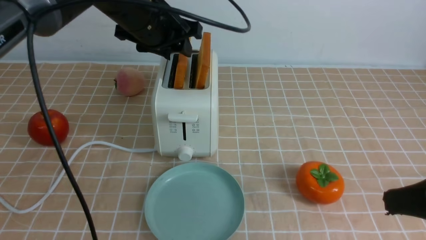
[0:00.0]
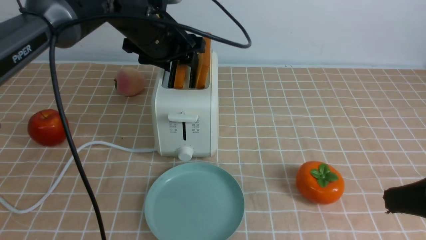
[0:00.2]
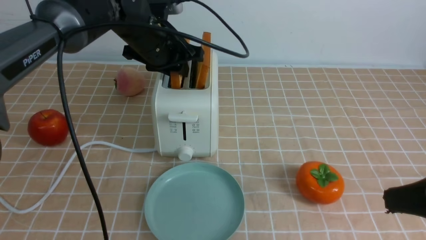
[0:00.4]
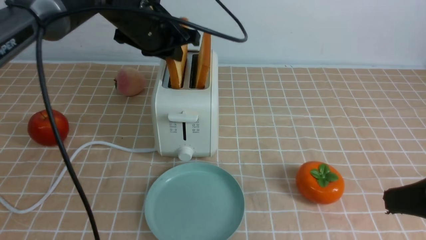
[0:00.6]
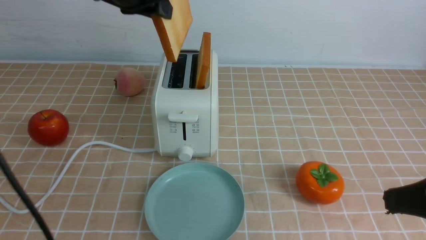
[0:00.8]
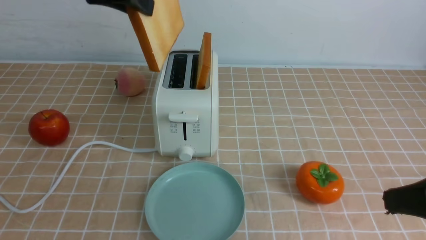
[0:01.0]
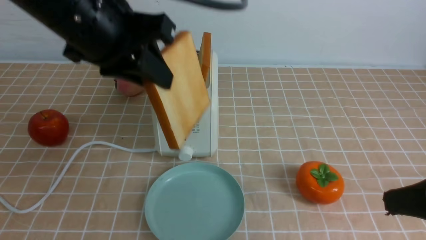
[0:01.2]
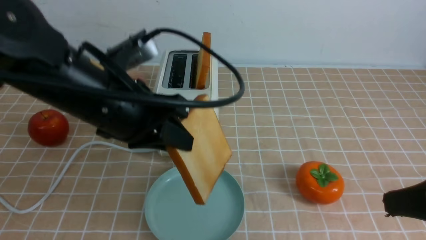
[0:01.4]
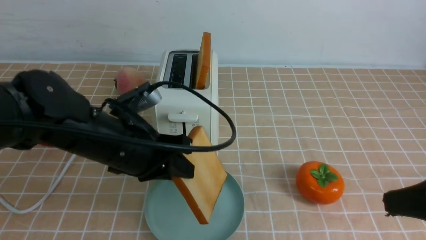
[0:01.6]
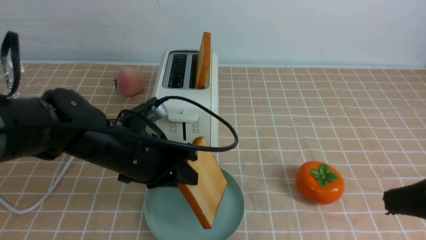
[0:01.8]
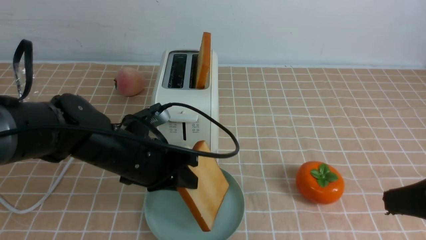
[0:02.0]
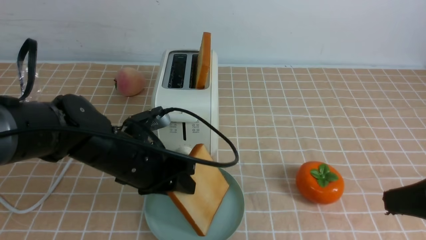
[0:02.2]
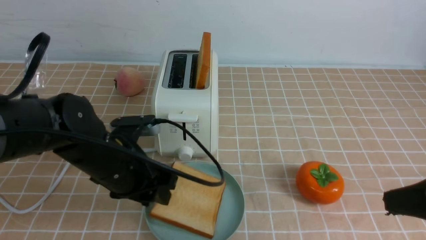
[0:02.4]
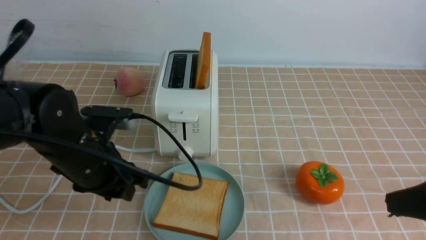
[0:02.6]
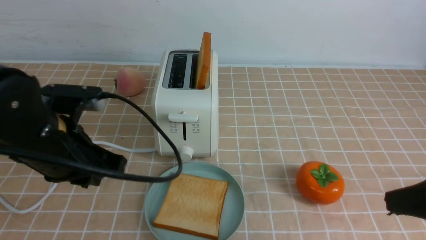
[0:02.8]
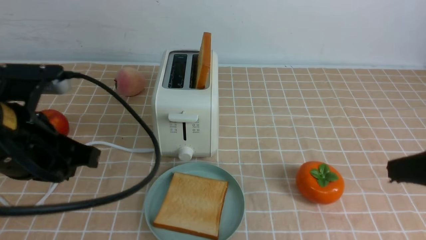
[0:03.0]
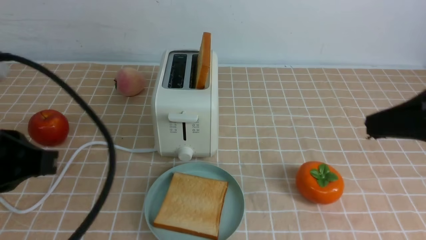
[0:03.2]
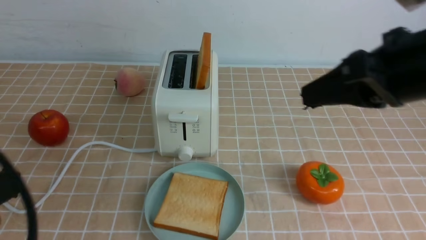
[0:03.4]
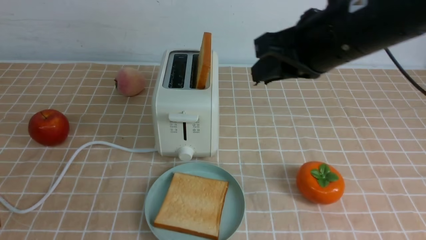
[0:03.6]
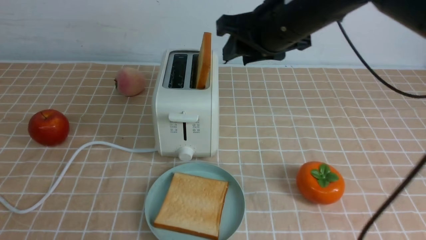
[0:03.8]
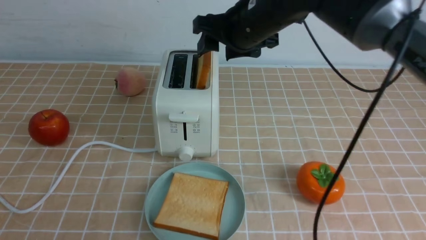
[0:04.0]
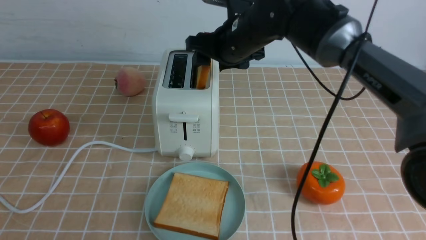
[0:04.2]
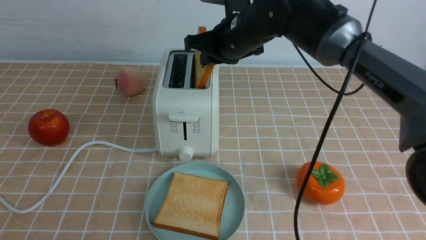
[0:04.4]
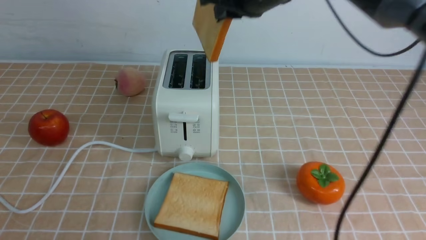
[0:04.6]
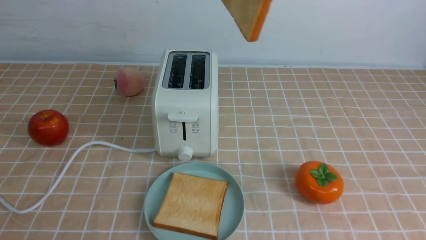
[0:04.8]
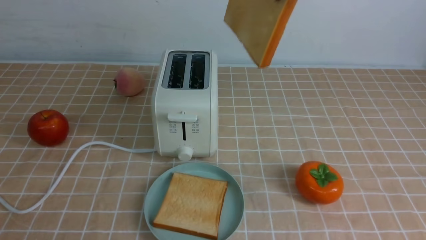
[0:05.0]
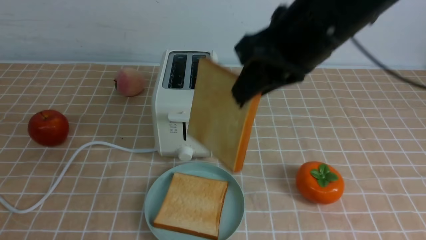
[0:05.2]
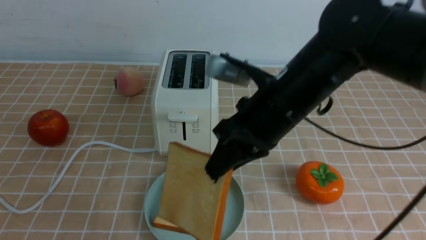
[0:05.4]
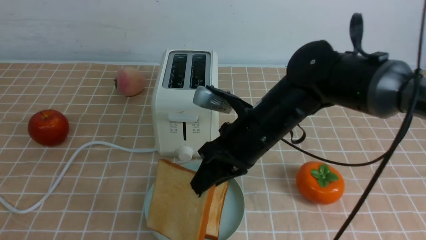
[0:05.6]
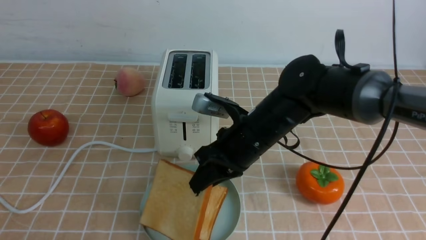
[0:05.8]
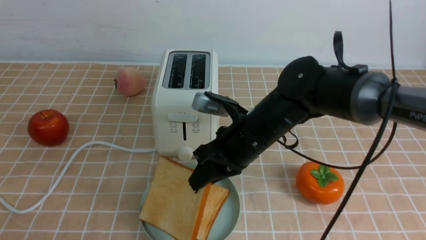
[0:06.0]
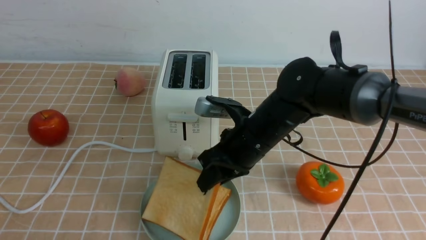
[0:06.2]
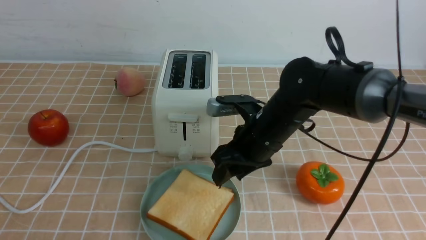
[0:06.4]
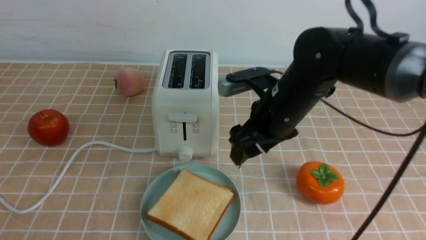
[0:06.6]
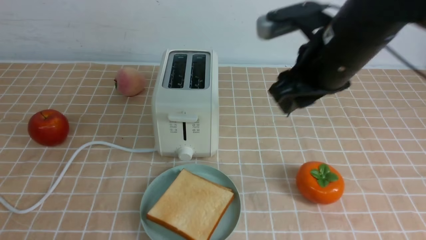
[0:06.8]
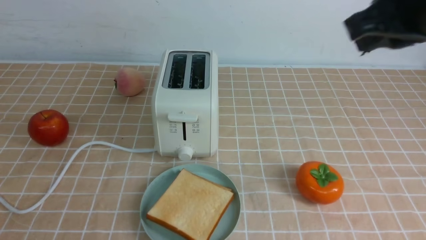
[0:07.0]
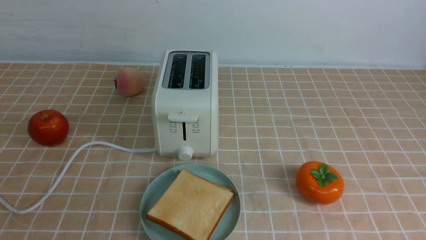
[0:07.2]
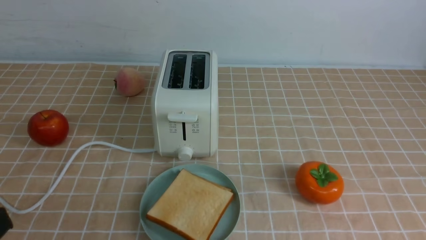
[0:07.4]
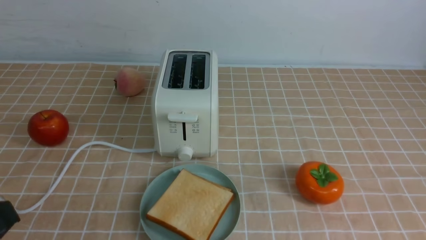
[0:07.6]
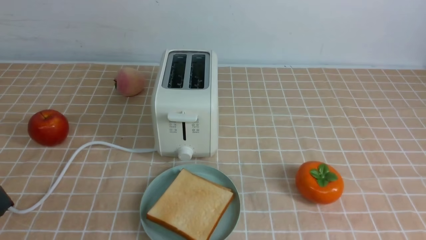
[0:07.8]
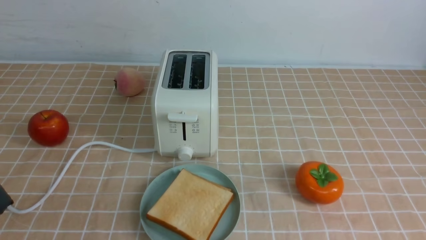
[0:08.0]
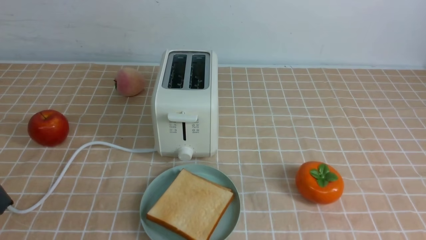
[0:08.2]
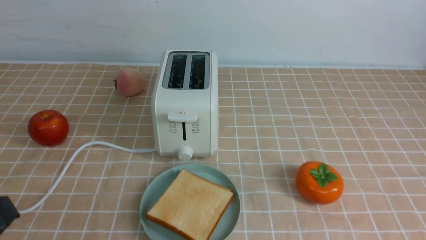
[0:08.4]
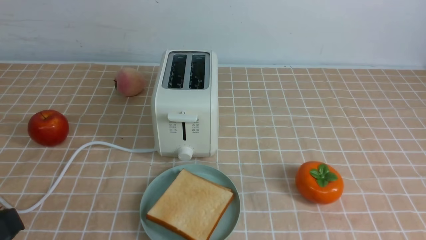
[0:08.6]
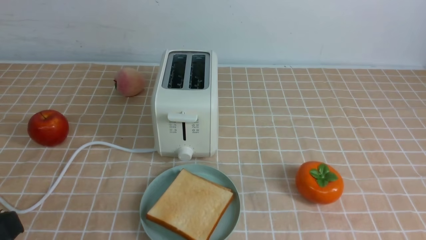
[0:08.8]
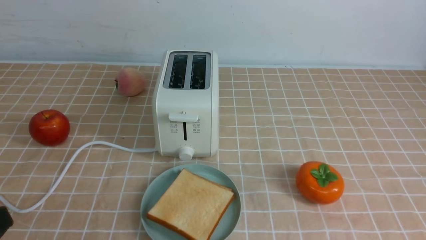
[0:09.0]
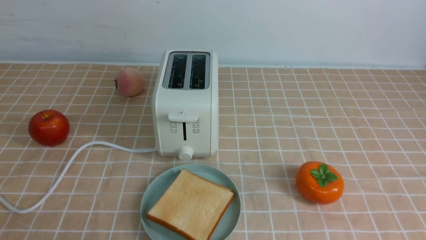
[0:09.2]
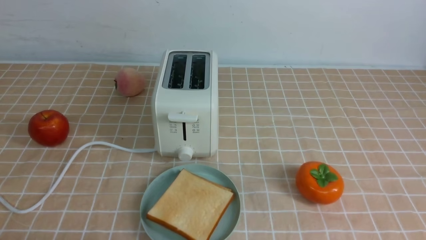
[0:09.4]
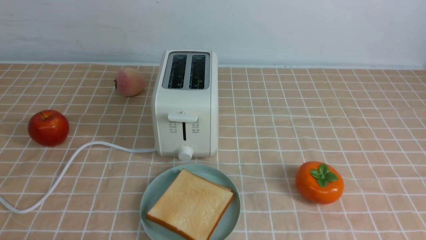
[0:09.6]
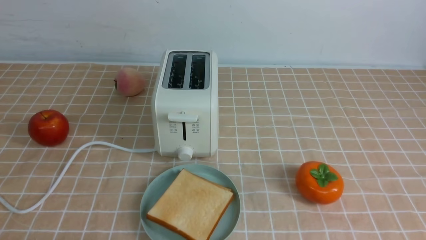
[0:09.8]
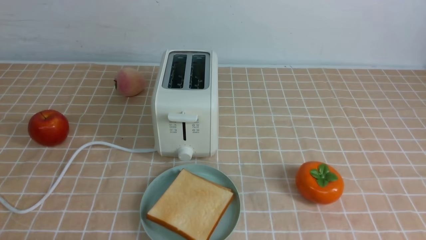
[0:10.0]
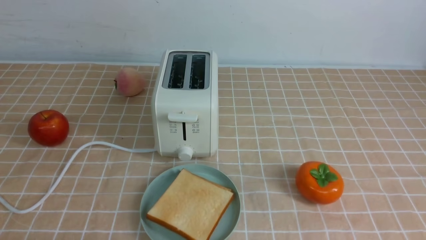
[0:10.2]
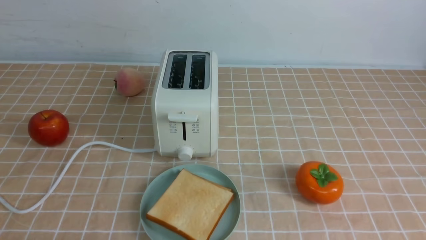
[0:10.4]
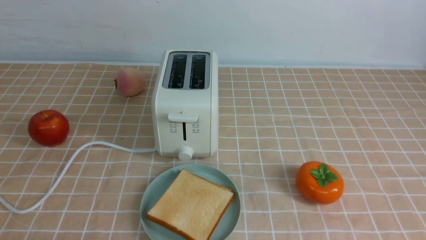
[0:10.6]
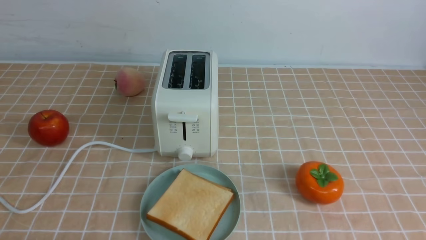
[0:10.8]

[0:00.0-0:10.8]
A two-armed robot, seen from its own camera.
Task of the whole recording: take toasted bread from bread machine on light coffee tablecloth place on plate.
Step, 0:00.8 to 0:02.6: use the left arm to put a slice of bread into the empty plate.
Step, 0:02.8 to 0:04.4: use the right arm to take out a slice of bread.
Step, 0:04.6 to 0:06.2: use the right arm to put a slice of bread into the plate.
0:00.0 to 0:01.6: The left gripper travels backward and downward by some 15 cm, and closes up.
0:01.6 to 0:03.0: The left gripper heads backward, to the left and upward, covering approximately 15 cm, and opens, then closes again.
0:03.0 to 0:04.6: The left gripper heads backward, covering some 20 cm, while the right gripper moves forward and to the left, roughly 30 cm, and opens, then closes again.
0:04.6 to 0:06.2: The right gripper is displaced downward by some 20 cm.
0:06.2 to 0:07.8: The right gripper shifts roughly 40 cm backward and to the right, and closes.

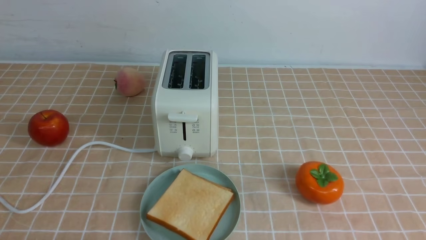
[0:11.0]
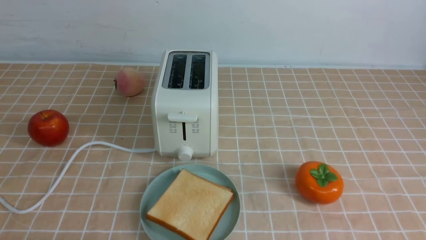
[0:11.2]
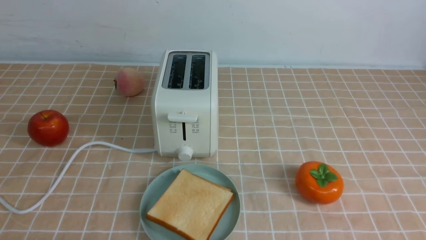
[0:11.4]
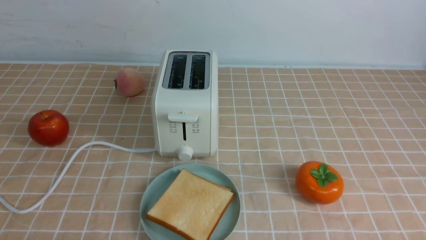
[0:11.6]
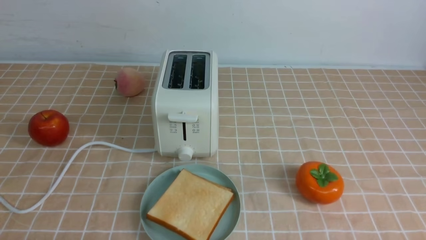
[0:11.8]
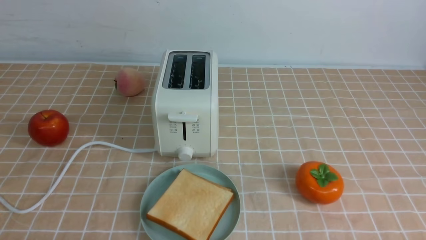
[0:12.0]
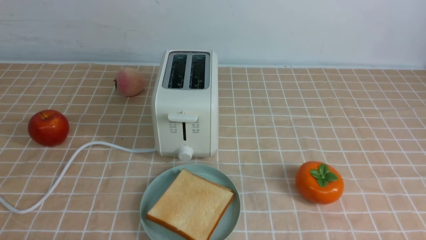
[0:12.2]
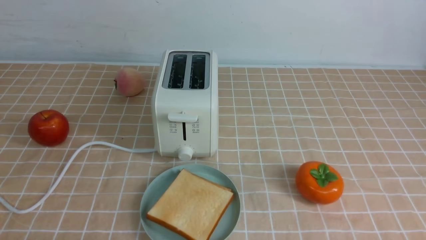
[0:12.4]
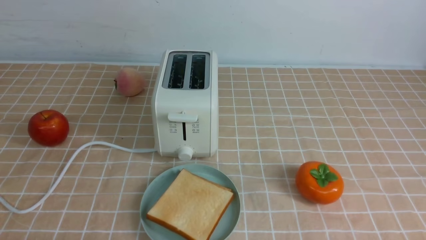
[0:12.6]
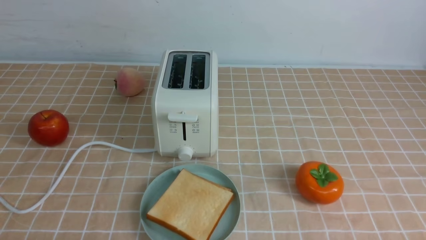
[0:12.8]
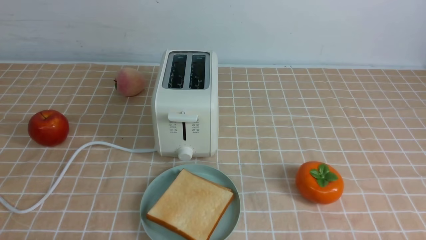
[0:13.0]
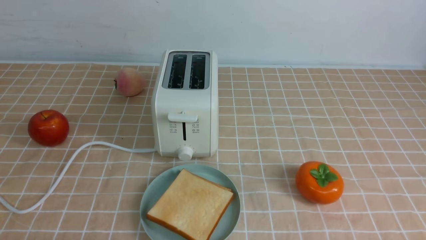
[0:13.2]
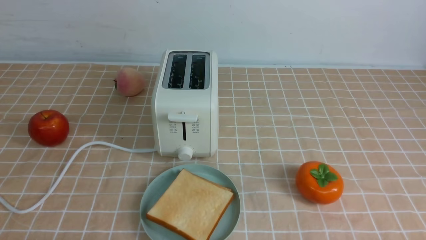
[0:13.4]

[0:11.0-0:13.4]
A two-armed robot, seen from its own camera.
Task of the whole recording: take toasted bread from bread machine on light coffee tablecloth place on plate.
0:12.2 to 0:13.4: Both grippers stay about where they are.
